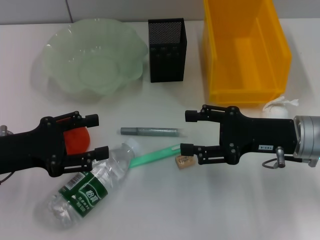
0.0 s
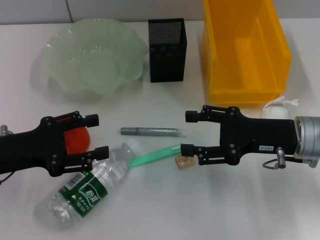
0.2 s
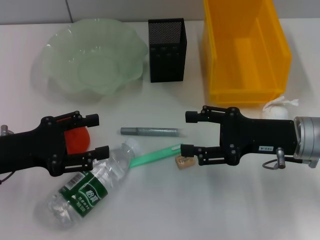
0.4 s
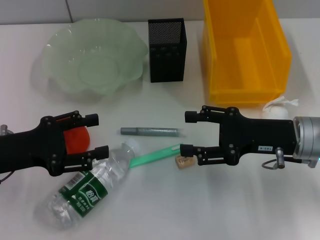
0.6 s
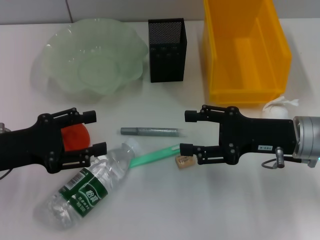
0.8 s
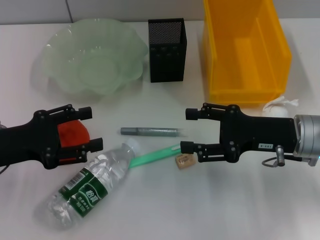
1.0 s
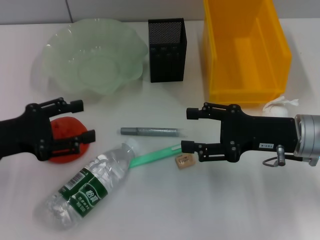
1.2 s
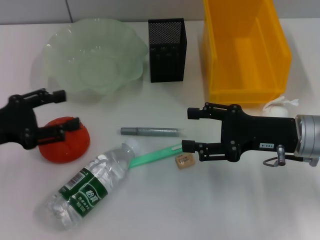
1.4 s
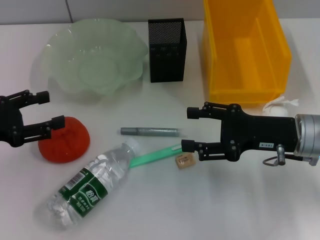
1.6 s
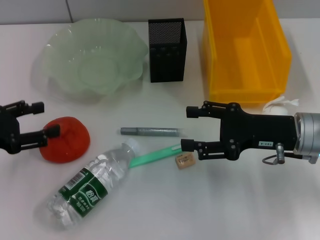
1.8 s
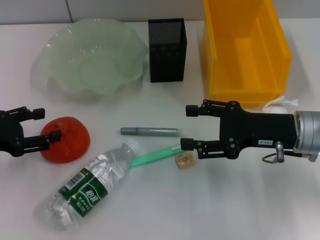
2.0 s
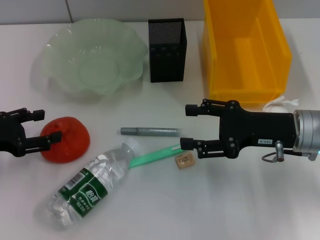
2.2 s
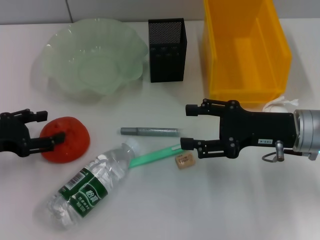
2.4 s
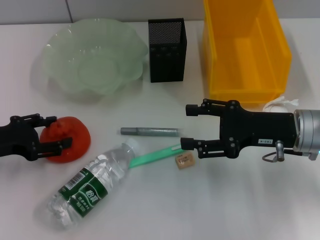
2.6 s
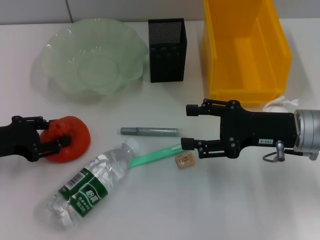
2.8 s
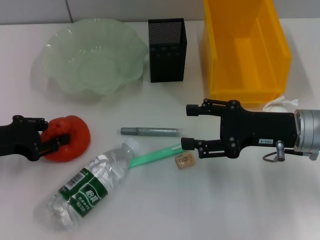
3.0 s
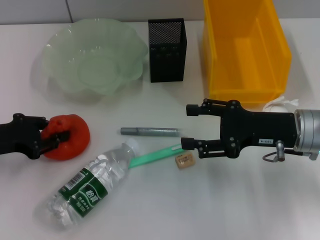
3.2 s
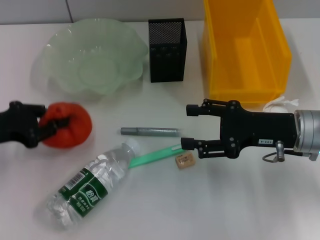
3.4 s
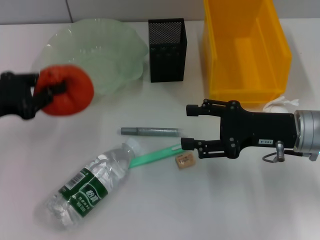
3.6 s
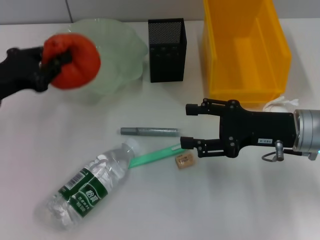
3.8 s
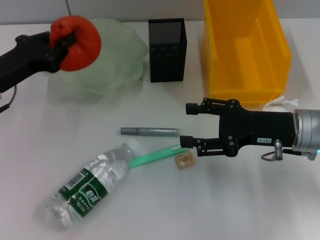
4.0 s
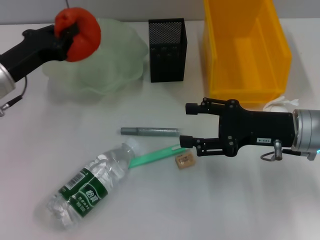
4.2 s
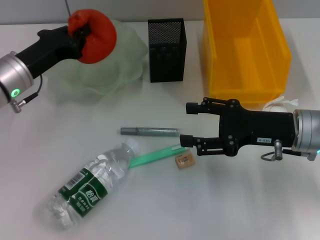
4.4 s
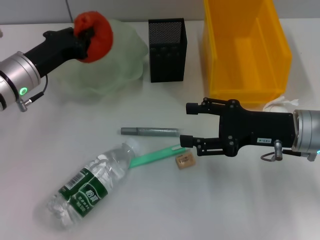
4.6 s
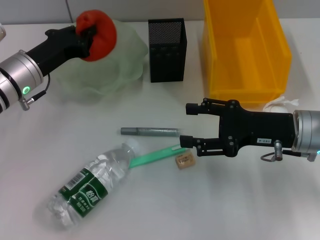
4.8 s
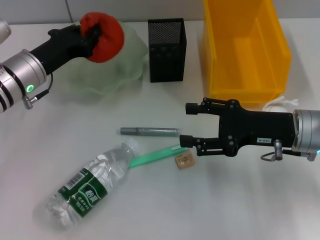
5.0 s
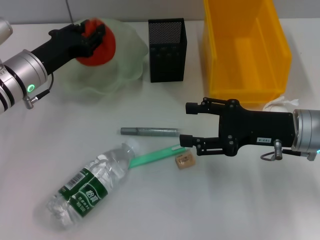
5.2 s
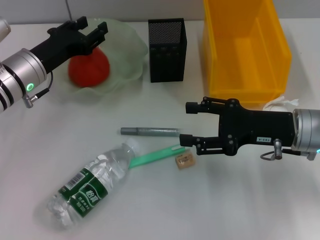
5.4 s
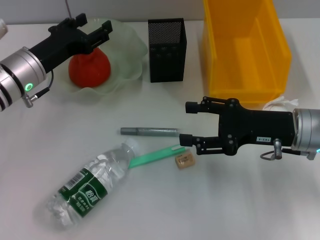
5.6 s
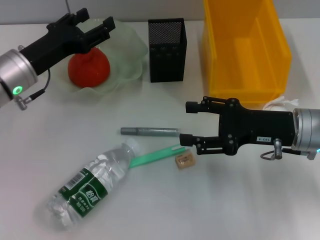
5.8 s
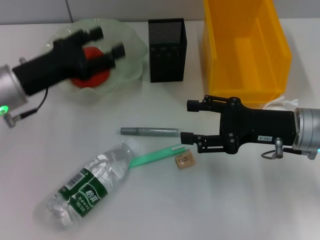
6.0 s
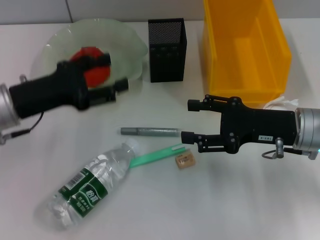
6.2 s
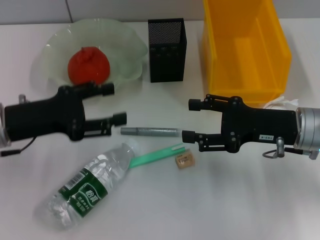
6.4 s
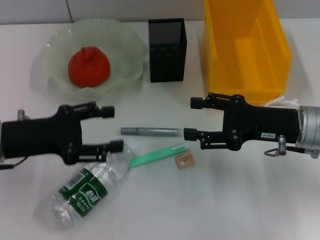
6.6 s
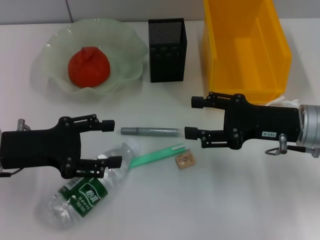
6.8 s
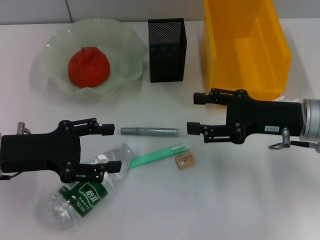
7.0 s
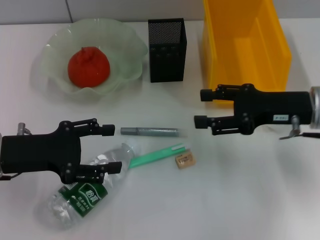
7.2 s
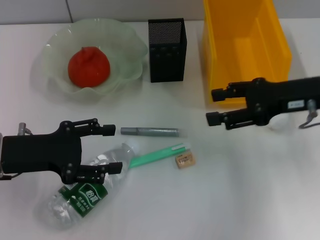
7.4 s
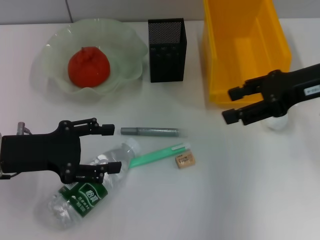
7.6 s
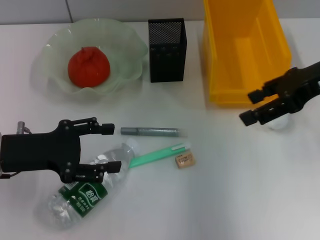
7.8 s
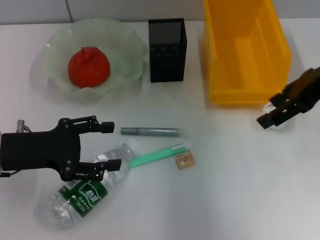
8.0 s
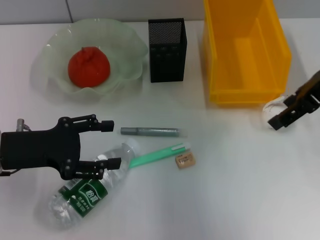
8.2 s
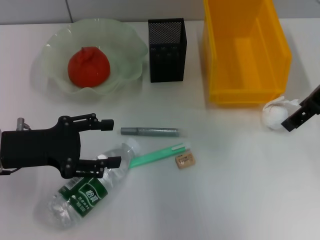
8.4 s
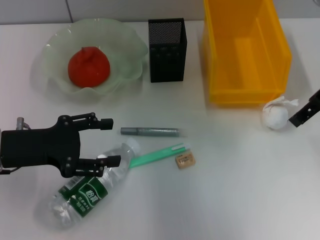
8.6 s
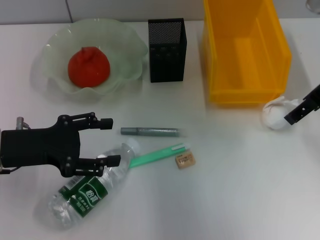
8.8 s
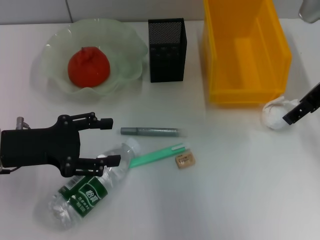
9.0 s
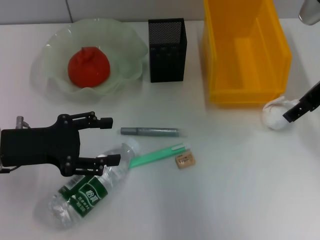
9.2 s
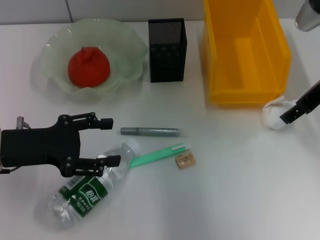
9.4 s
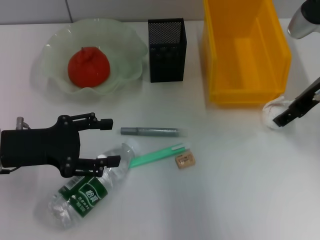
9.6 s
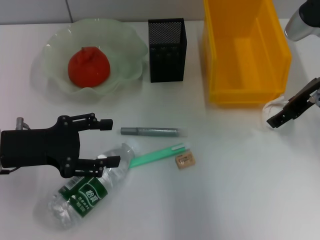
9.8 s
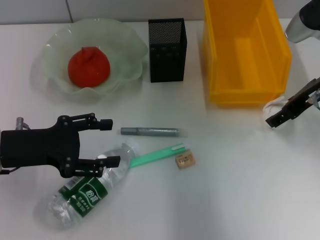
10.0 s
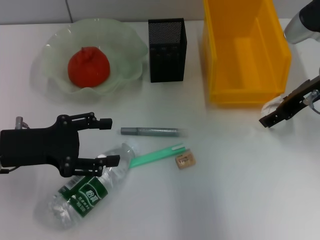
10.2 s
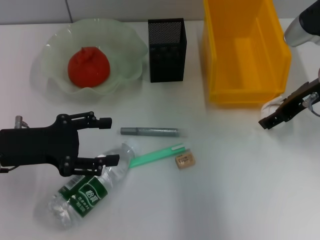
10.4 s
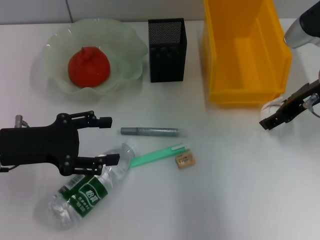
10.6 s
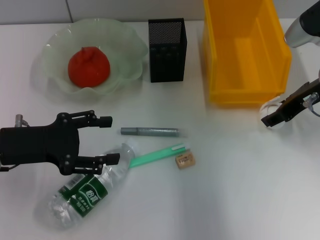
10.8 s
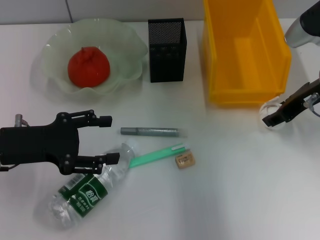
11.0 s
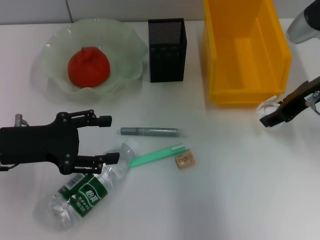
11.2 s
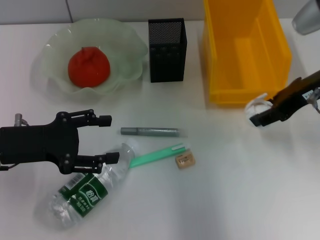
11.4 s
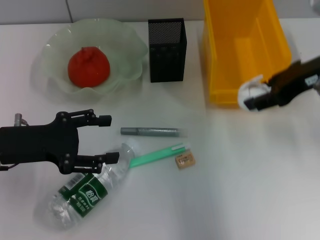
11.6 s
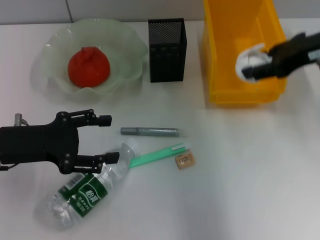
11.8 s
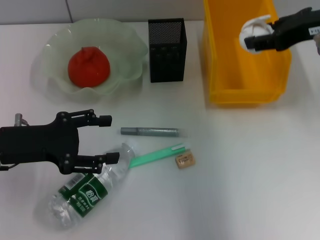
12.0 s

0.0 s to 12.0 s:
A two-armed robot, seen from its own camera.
Step, 0.0 to 2.8 s: Grab the orange with the left hand.
Step, 3.0 to 5.6 s: Place the orange into the fruit bowl with the left hand.
Step, 5.8 to 10.8 s: Grab the paper ball with the right hand.
0.0 to 1.6 s: The left gripper shifts some 5 cm to the left.
1.6 to 3.0 s: The grippers make only small movements.
3.0 to 4.4 s: The left gripper moves forward and to the right, approximately 10 cm, and closes up.
4.4 to 6.0 s: The left gripper opens.
6.0 to 7.6 s: The left gripper moves backward, some 5 cm. Meanwhile the right gripper moves upward, roughly 10 cm.
9.0 to 10.4 s: The right gripper shifts about 5 cm downward.
10.4 to 12.0 s: The right gripper heads upward, covering some 10 cm, and closes.

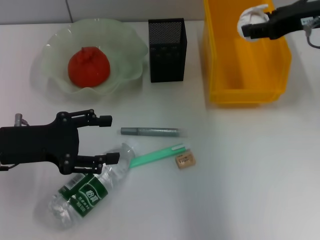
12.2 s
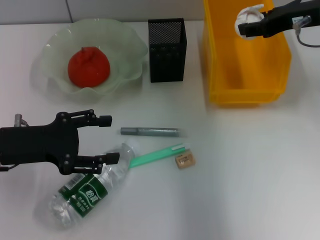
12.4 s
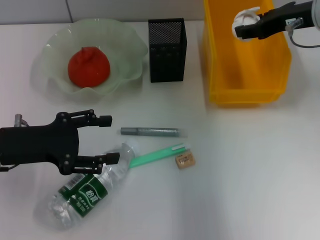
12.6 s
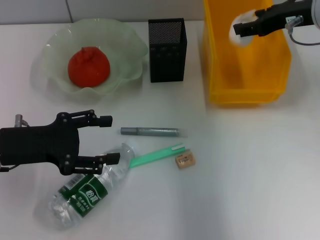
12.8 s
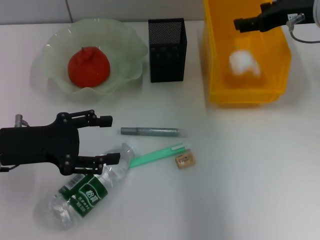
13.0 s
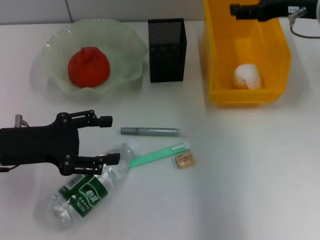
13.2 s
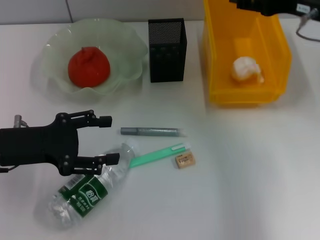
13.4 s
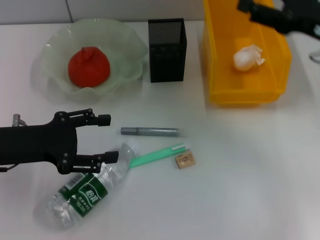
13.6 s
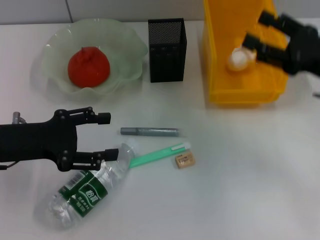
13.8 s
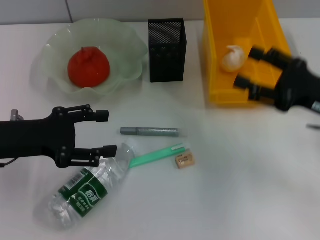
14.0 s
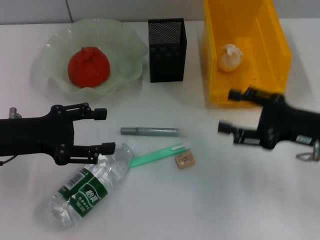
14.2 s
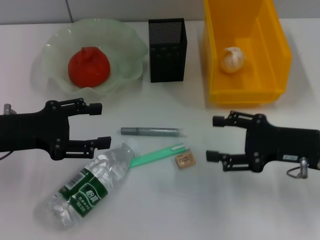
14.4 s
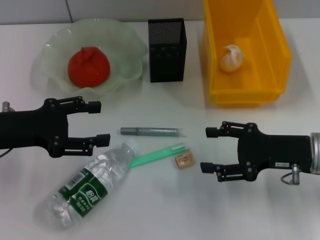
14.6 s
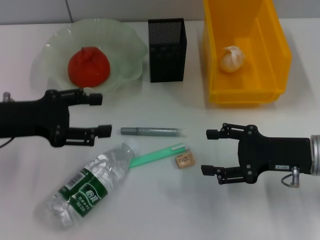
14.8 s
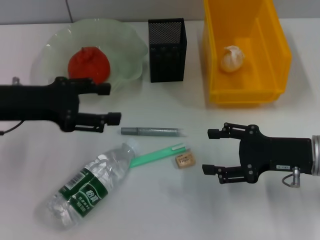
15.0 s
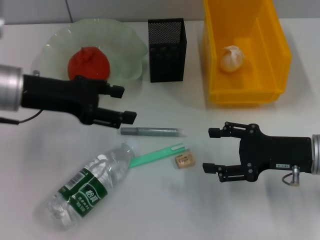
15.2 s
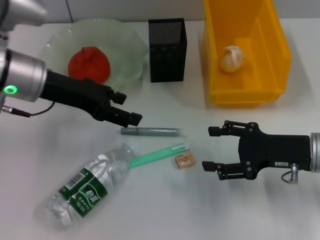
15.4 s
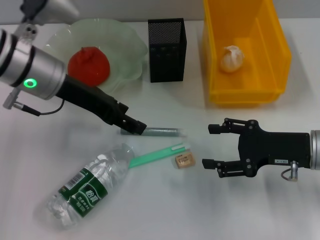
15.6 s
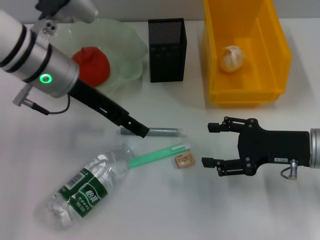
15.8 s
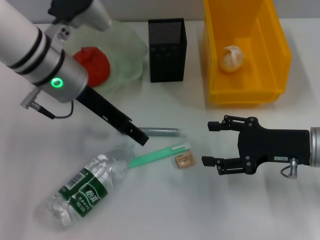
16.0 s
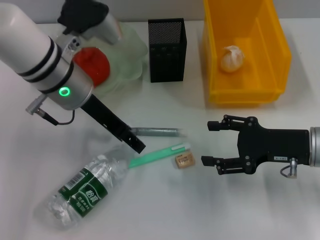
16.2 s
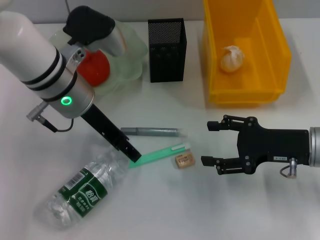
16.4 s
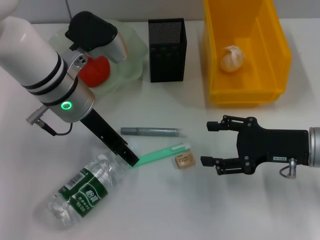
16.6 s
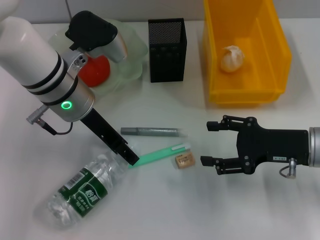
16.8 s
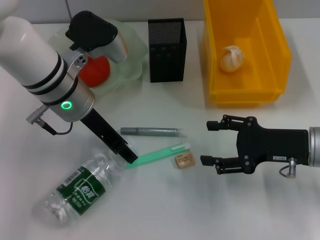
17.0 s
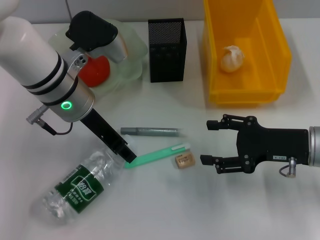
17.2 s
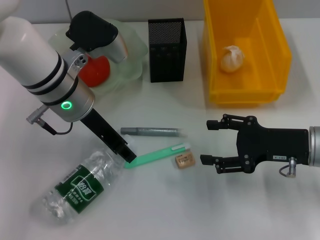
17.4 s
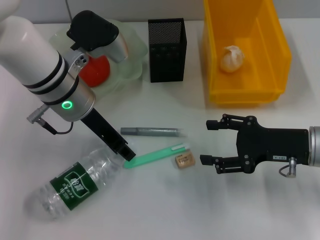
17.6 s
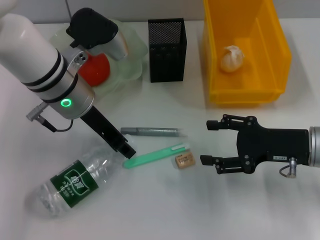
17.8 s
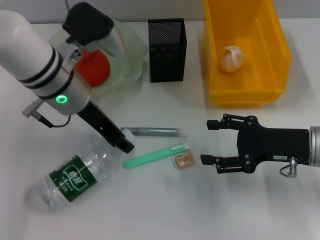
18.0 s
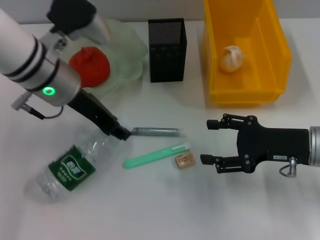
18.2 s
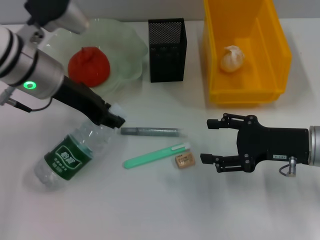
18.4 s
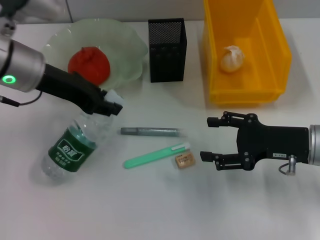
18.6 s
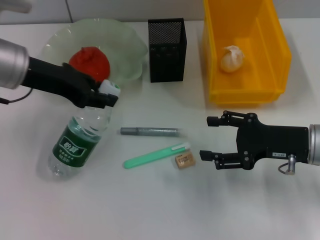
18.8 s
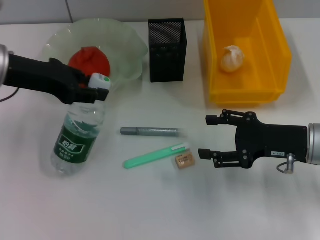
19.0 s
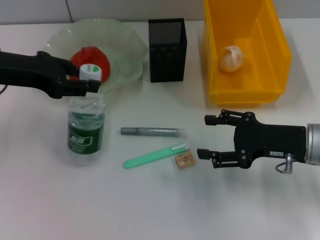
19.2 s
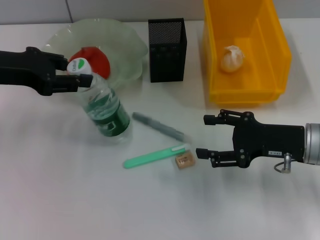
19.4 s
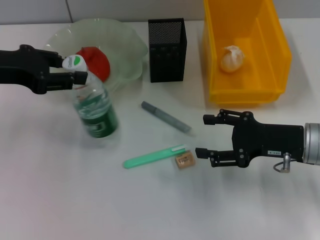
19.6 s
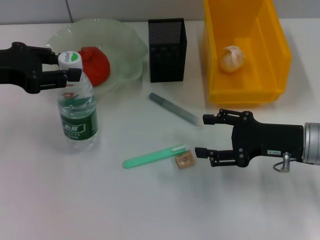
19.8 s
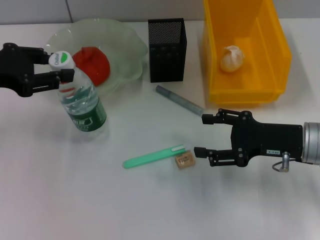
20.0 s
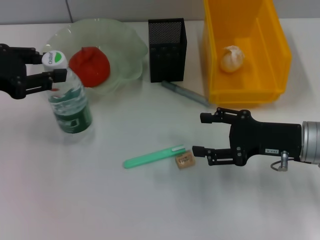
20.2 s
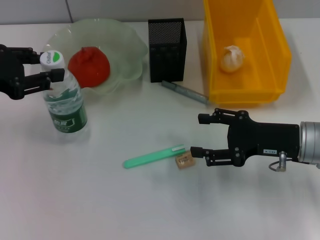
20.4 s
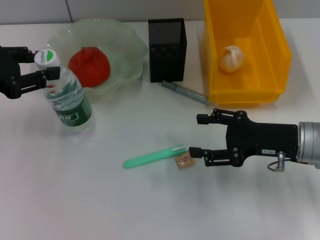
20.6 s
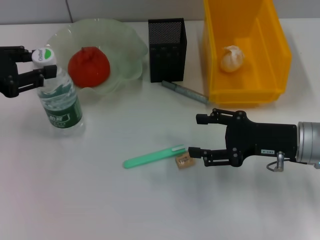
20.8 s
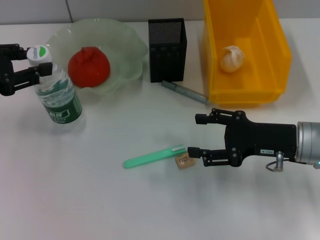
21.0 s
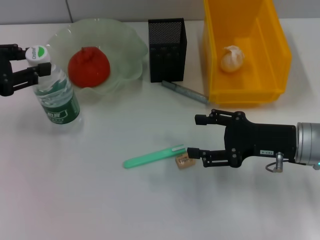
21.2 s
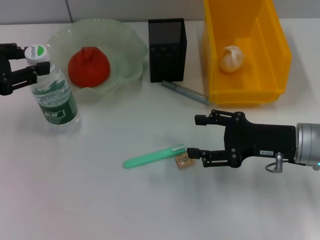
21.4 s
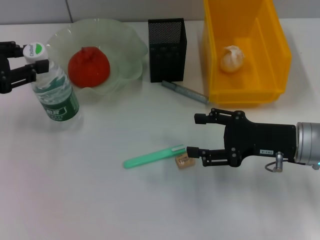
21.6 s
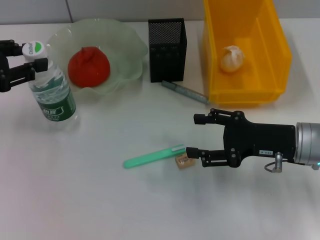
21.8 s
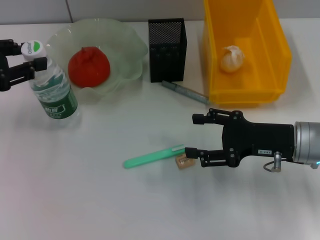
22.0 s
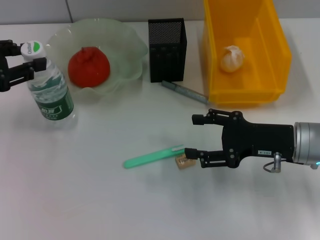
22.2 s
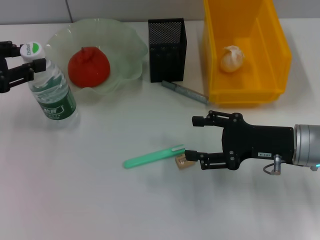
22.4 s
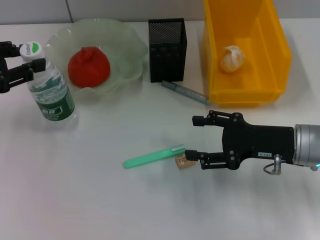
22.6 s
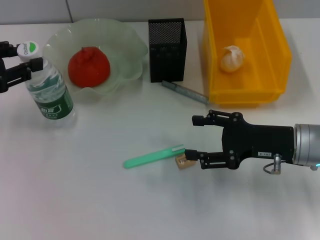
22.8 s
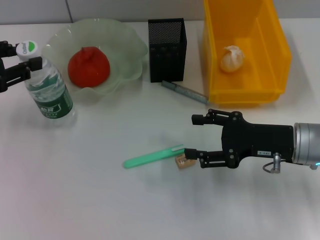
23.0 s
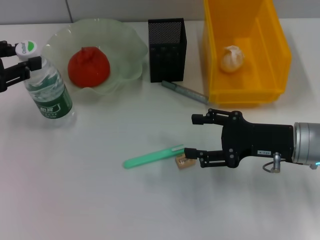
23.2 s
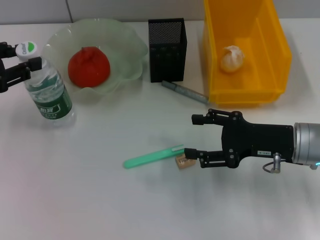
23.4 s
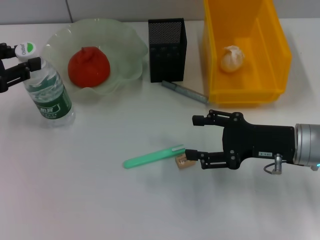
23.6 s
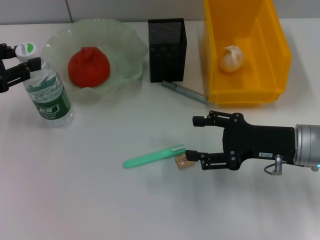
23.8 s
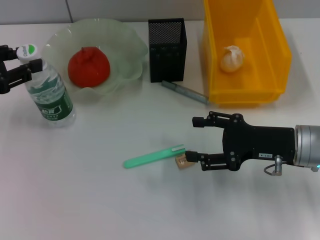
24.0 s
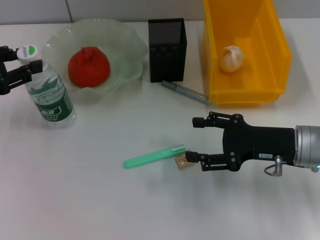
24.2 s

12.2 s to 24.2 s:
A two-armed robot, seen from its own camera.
Step, 13.4 to 17.0 s: Grab the water bottle with the left hand.
12.2 to 13.8 s: The right gripper goes some 15 cm downward and backward, and opens its fingers.
13.8 to 15.2 s: The right gripper shifts some 5 cm downward. Meanwhile the left gripper goes some 10 cm forward and upward.
15.2 to 16.6 s: The left gripper travels to the right by some 10 cm.
16.6 to 18.2 s: The left gripper closes up.
18.2 to 19.8 s: The left gripper moves to the left, some 15 cm.
19.8 to 21.2 s: There are only small adjustments of the grippers.
21.2 to 22.6 s: Both grippers stay put.
22.6 to 24.2 s: The grippers move only a little.
